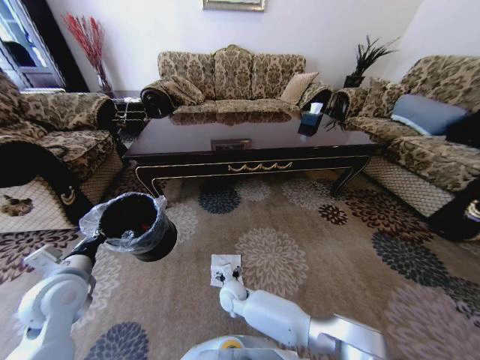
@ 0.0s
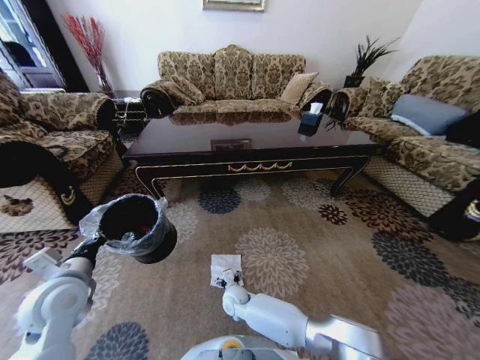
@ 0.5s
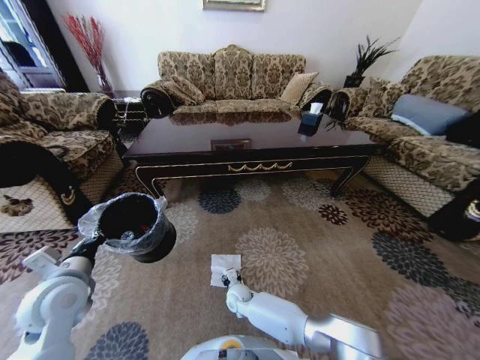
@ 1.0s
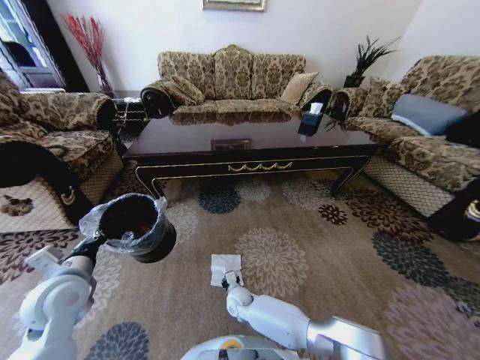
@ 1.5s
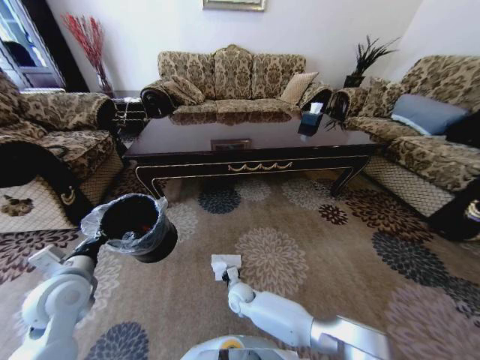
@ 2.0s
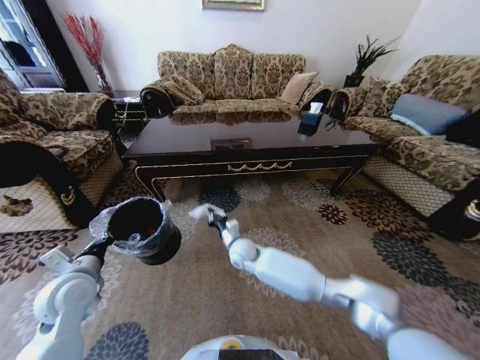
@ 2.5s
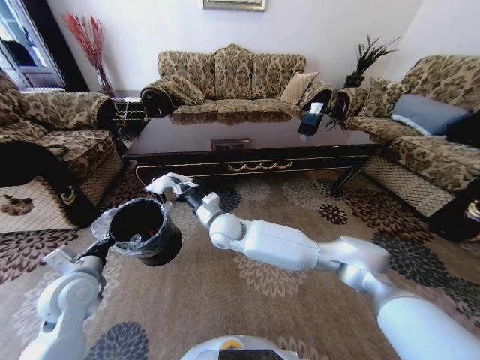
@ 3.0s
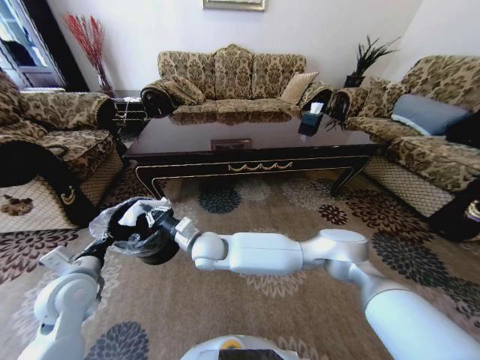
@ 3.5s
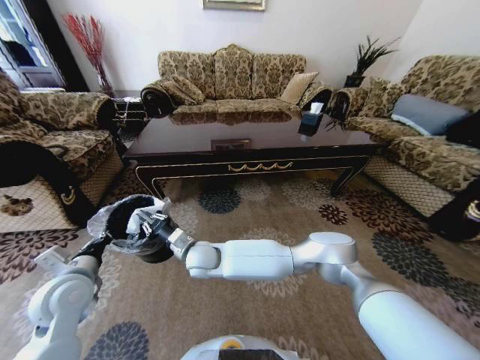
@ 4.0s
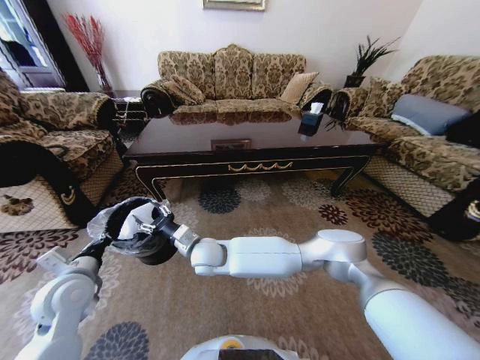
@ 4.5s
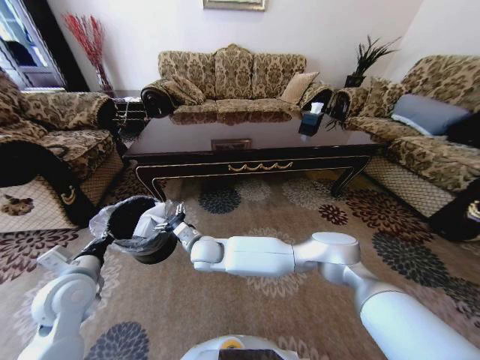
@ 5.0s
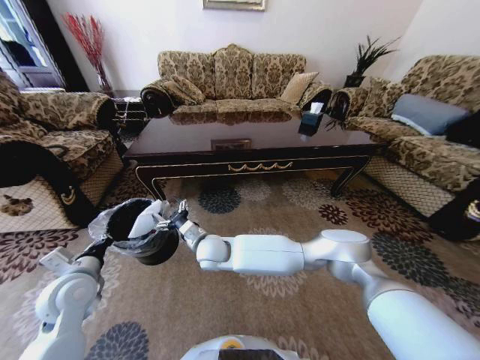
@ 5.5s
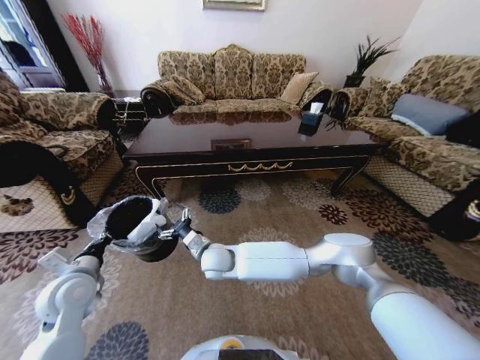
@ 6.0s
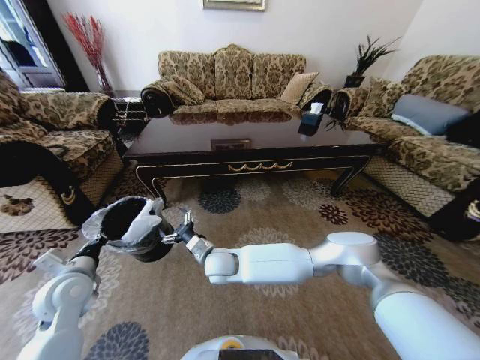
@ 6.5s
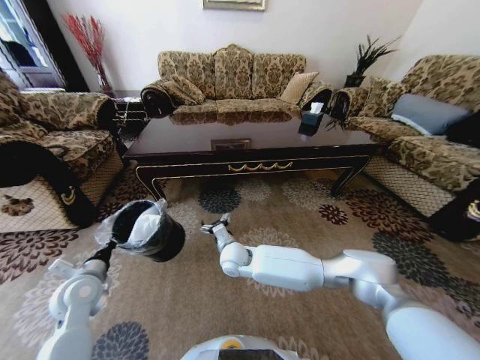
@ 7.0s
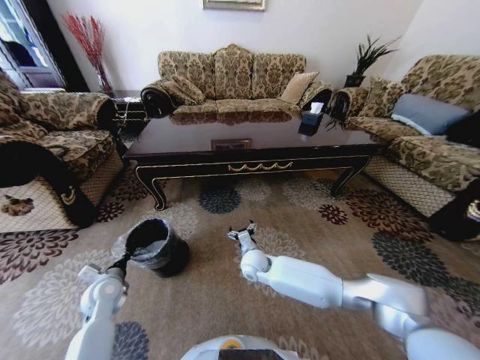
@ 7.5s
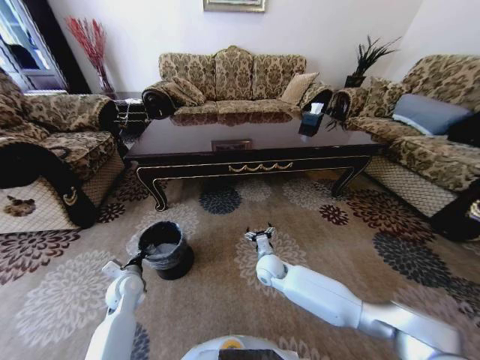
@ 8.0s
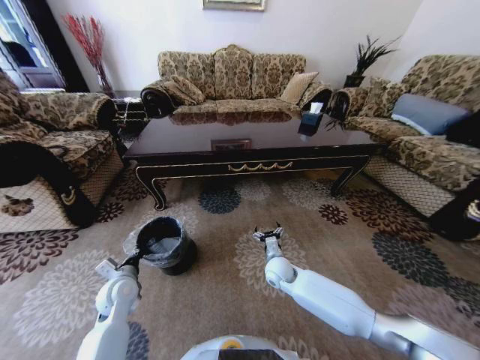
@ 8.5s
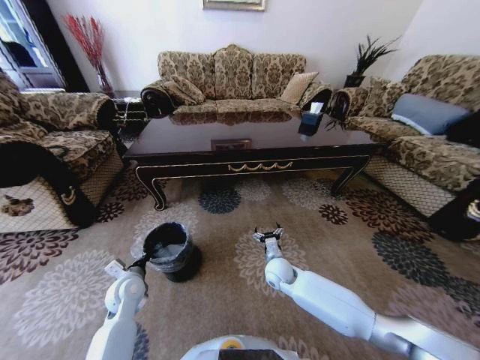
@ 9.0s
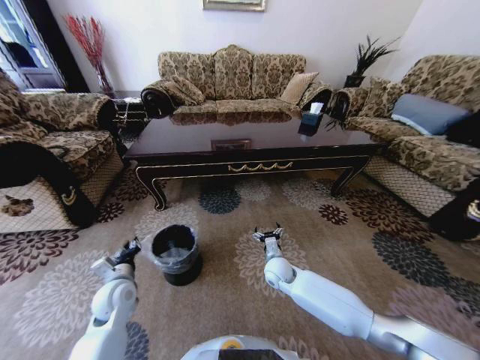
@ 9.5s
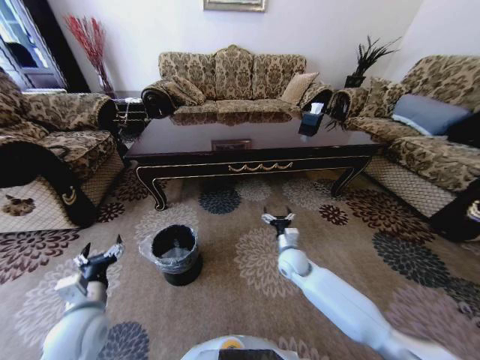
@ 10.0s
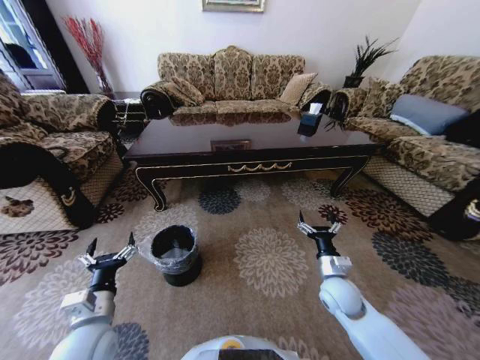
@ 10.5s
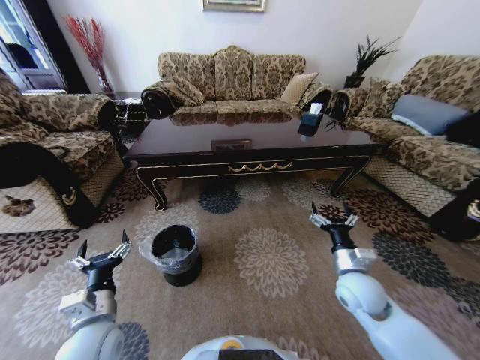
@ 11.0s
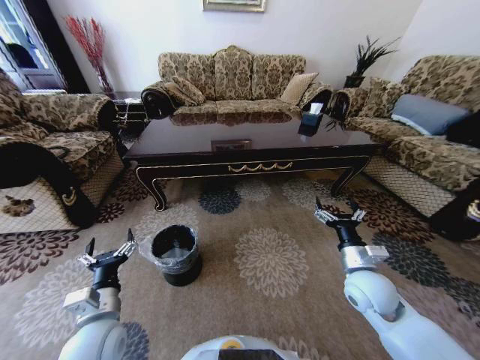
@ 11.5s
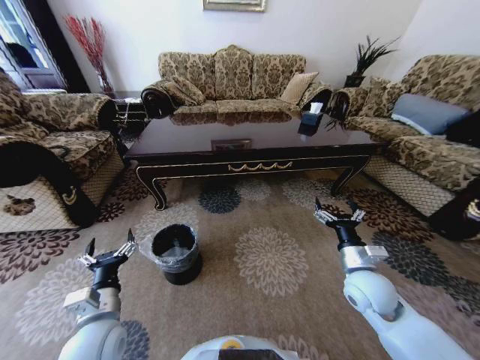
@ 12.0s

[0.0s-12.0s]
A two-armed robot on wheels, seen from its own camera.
Task of the whole recording: Move to the front of the table and pick up the trash from the floor, then place it into the trash bin.
0.0s to 2.0s: The right gripper shifts by approximately 5 cm, and closes its fingers.
2.0s to 4.0s: The right gripper moves upward and to the left, some 25 cm.
4.0s to 6.0s: The right gripper opens up.
6.0s to 8.0s: The left gripper moves downward, approximately 15 cm, while the right gripper heads to the right and downward, covering approximately 20 cm.
8.0s to 10.0s: The left gripper moves backward and upward, some 15 cm, and opens its fingers, while the right gripper moves to the right, about 10 cm.
10.0s to 12.0s: The left gripper moves to the right, about 5 cm, while the right gripper is displaced backward, to the right and upward by some 20 cm.

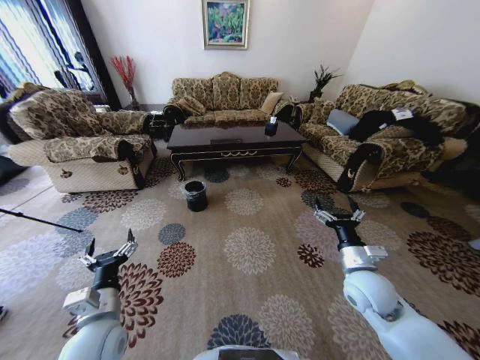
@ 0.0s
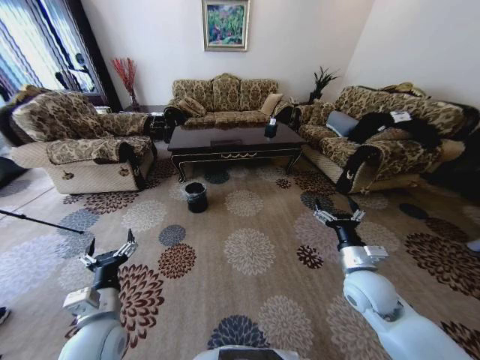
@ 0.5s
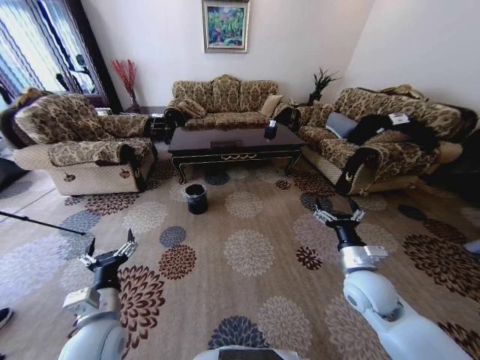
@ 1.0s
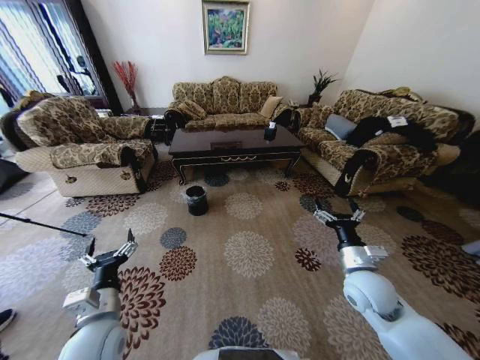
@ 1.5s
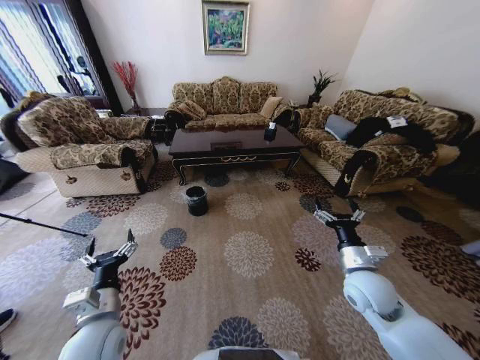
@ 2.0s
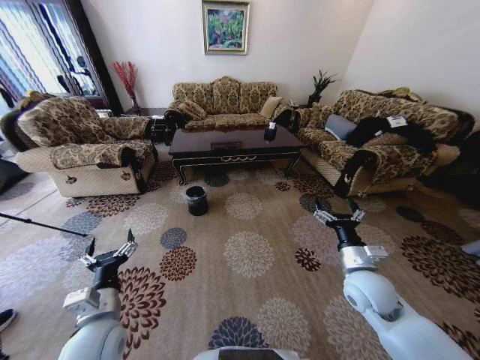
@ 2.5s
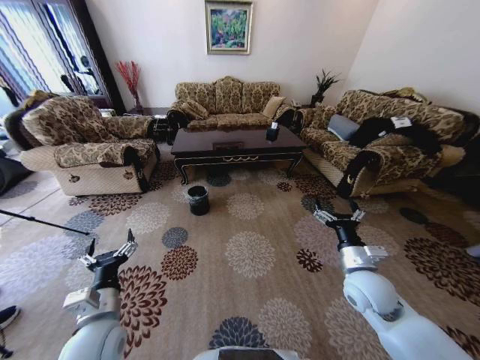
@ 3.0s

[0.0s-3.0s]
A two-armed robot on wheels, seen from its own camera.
Task of the whole recording: Move to the front of the table and pick up the trash from the floor, then place it into the trash bin.
0.0s to 3.0s: Both grippers stay put.

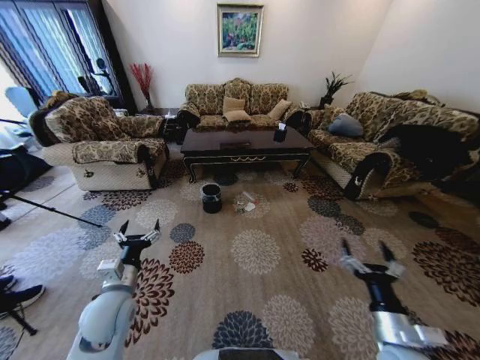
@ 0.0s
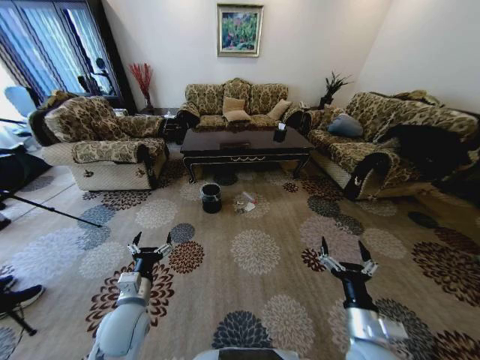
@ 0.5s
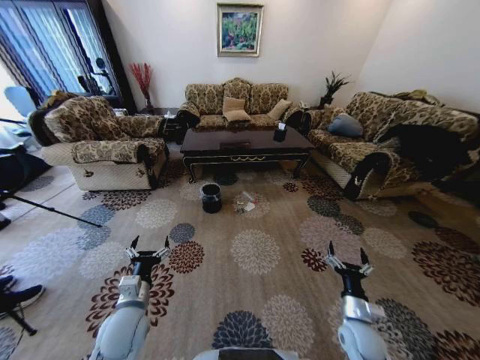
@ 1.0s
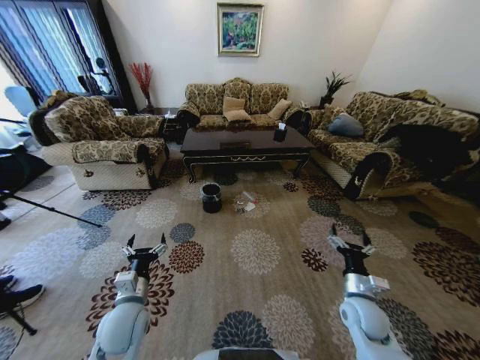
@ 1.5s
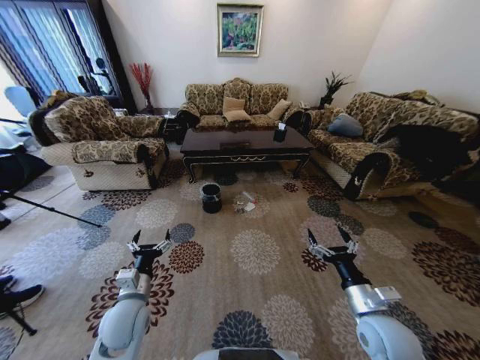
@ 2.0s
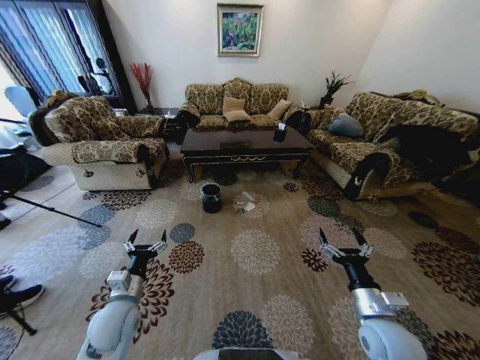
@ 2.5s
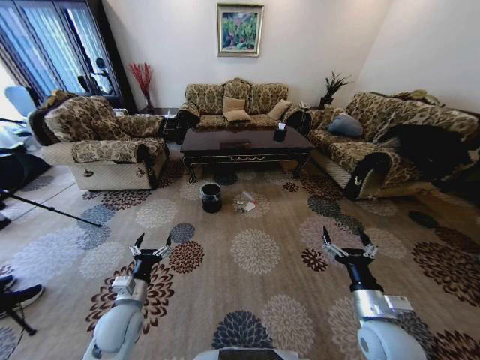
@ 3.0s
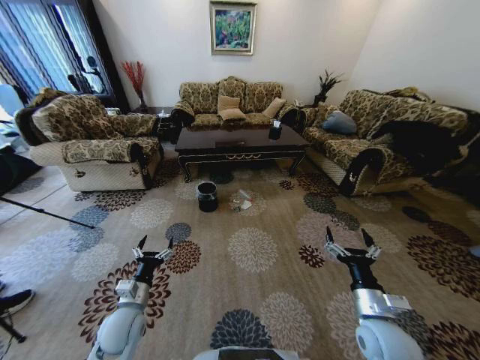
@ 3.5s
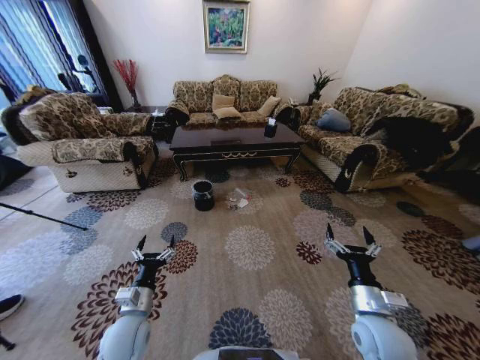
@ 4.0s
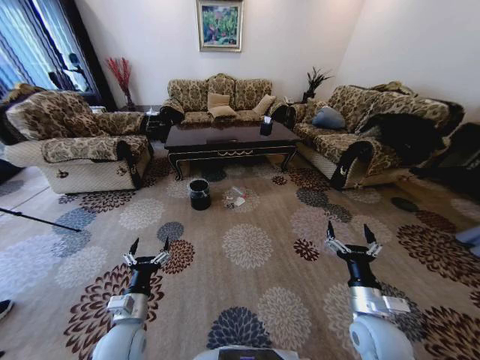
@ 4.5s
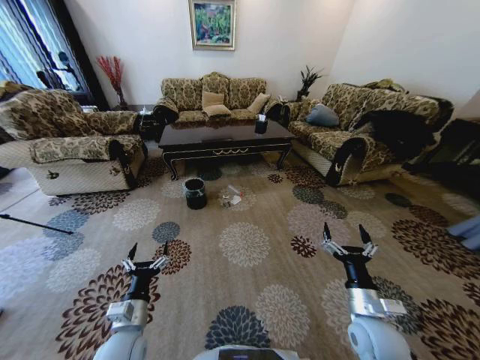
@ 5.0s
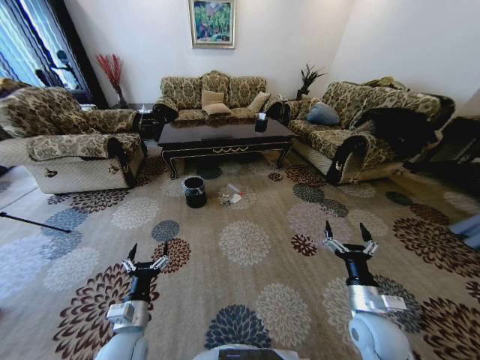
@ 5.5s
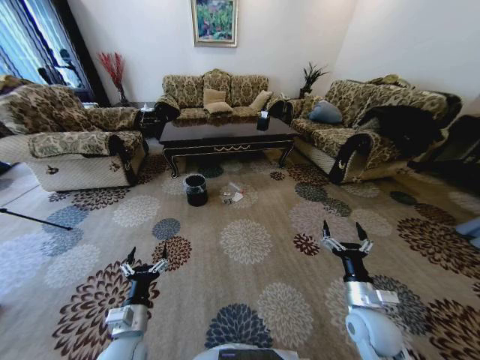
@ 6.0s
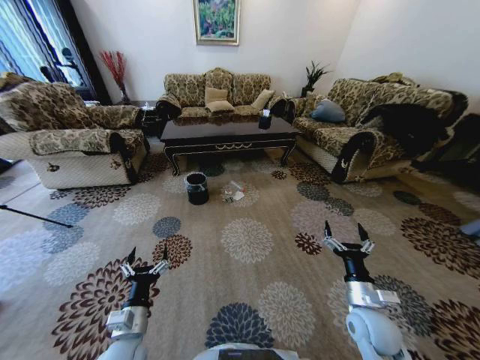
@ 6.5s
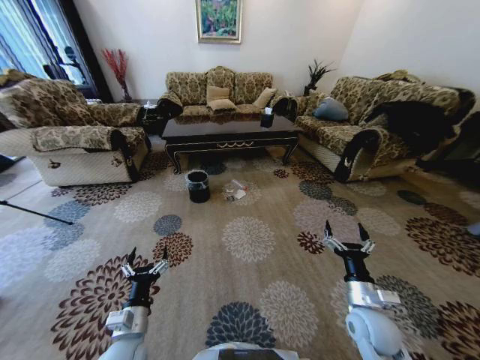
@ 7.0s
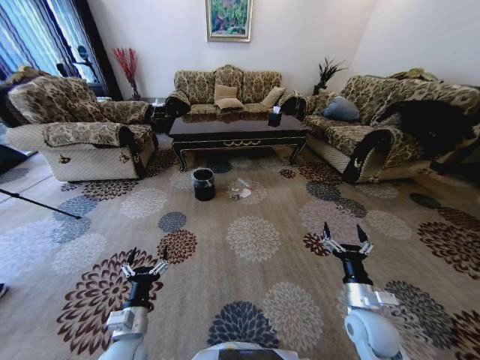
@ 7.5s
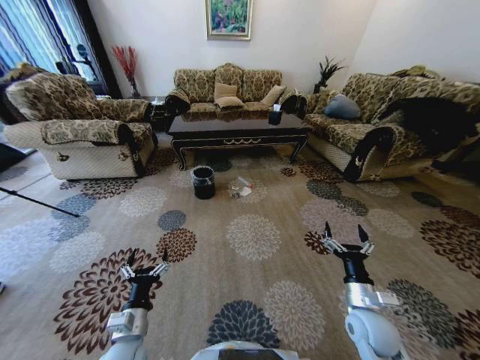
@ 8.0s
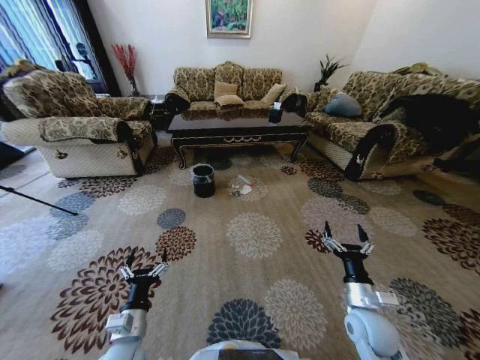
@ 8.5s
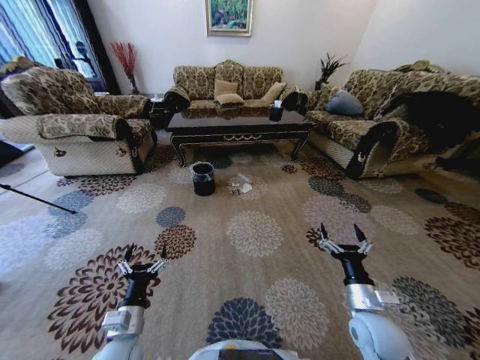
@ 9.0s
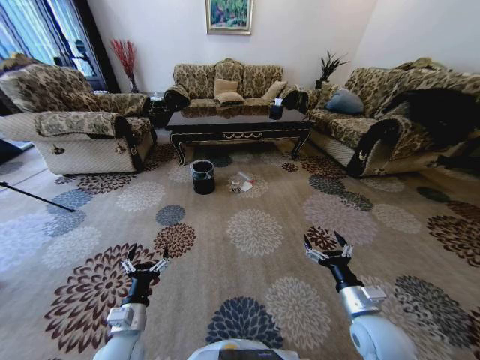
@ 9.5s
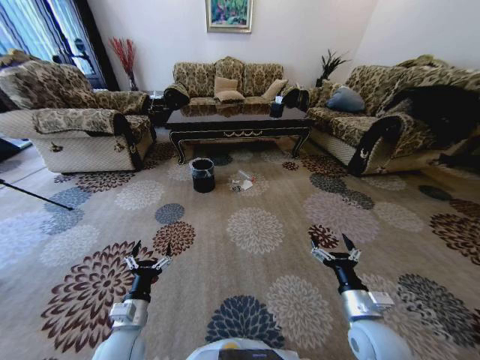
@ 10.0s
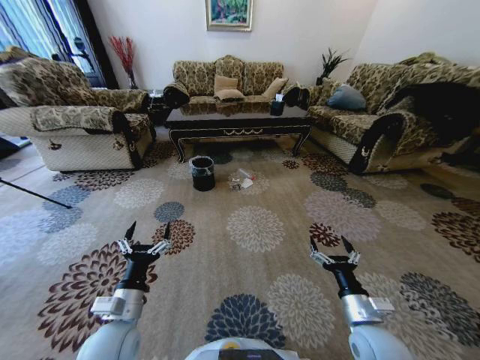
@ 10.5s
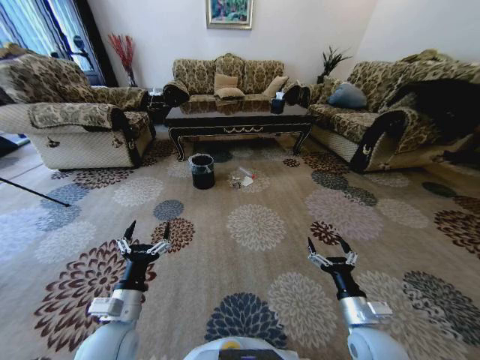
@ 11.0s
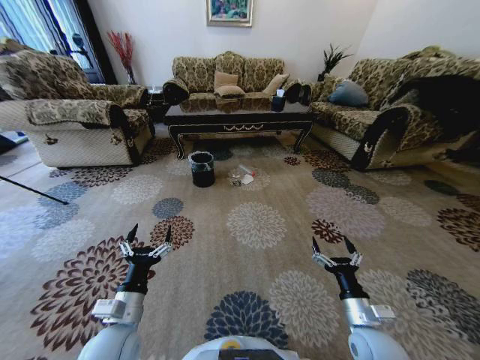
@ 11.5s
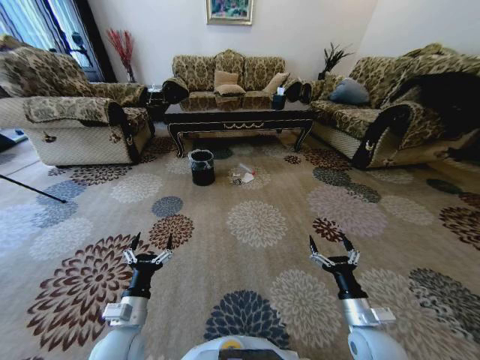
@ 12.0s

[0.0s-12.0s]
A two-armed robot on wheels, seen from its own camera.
Task of the whole recording: Move to the front of the table and pick up the trash from the floor, then place it into the trash bin.
8.0s to 10.0s: The right gripper shifts by some 5 cm.
